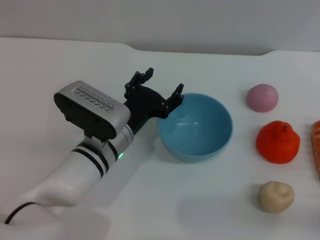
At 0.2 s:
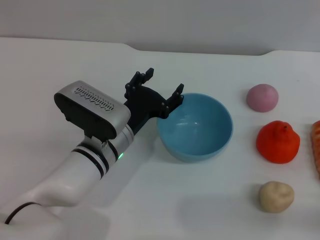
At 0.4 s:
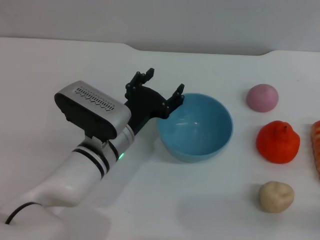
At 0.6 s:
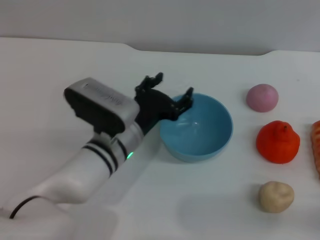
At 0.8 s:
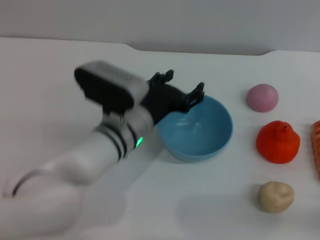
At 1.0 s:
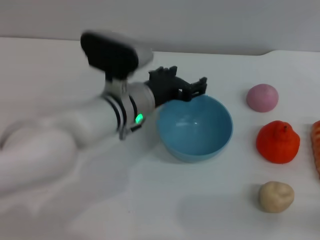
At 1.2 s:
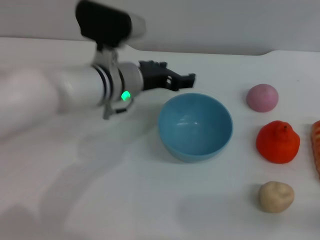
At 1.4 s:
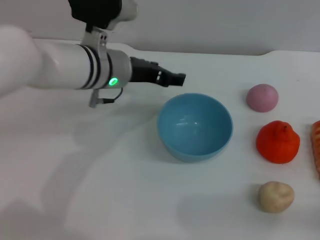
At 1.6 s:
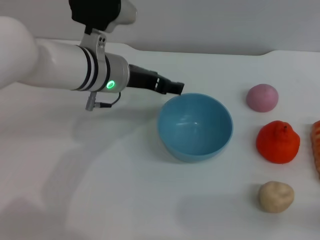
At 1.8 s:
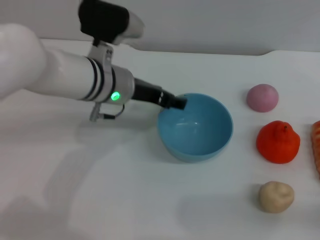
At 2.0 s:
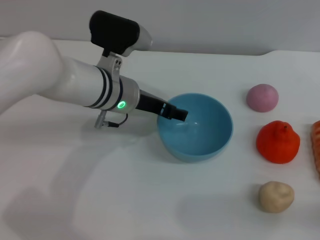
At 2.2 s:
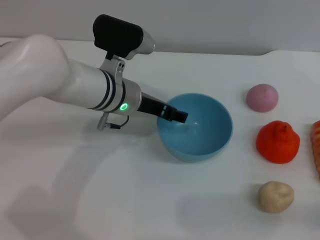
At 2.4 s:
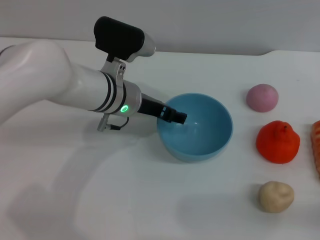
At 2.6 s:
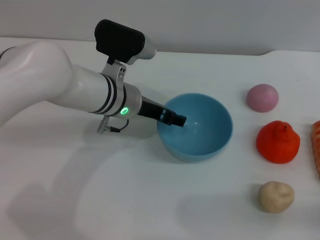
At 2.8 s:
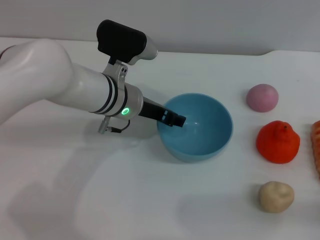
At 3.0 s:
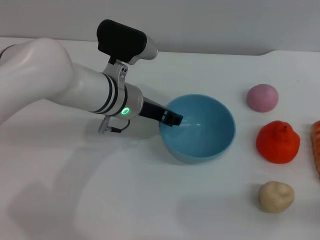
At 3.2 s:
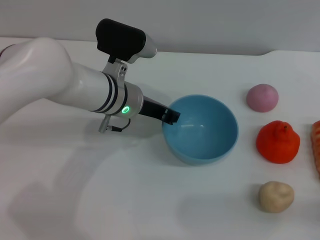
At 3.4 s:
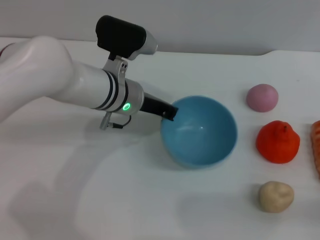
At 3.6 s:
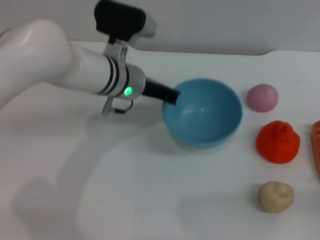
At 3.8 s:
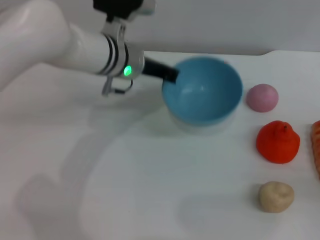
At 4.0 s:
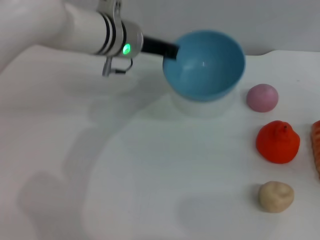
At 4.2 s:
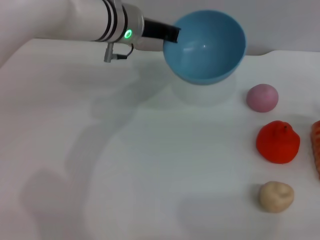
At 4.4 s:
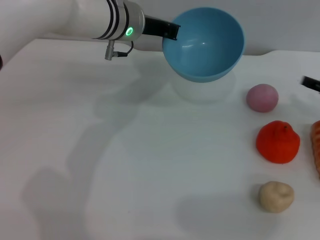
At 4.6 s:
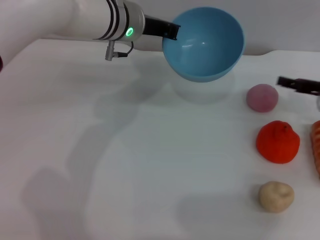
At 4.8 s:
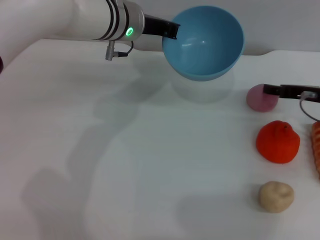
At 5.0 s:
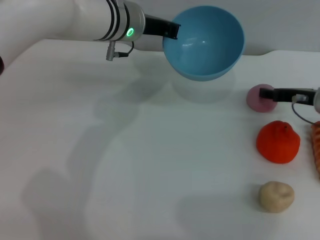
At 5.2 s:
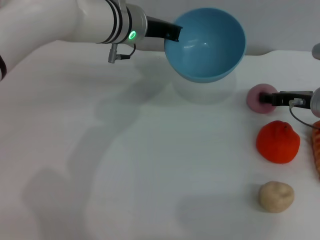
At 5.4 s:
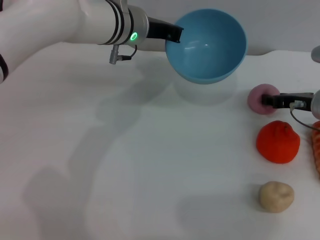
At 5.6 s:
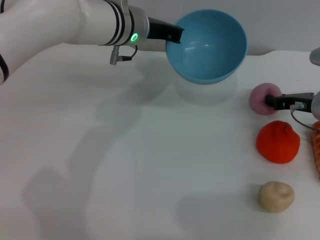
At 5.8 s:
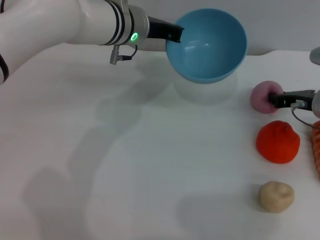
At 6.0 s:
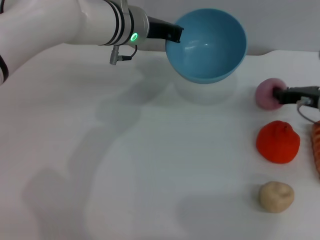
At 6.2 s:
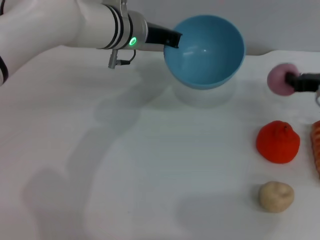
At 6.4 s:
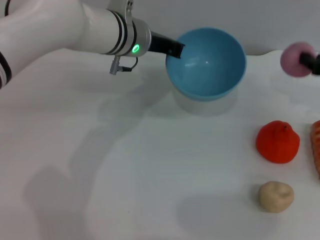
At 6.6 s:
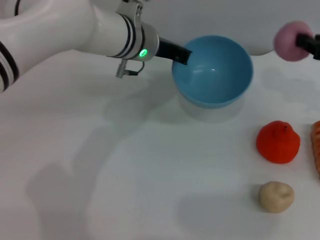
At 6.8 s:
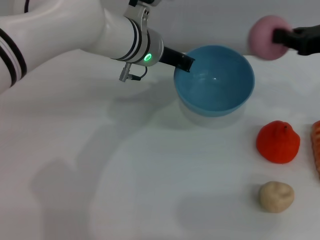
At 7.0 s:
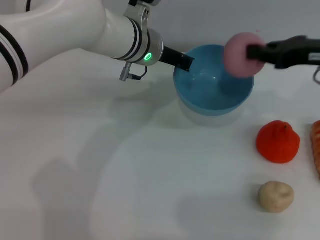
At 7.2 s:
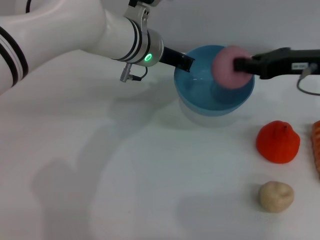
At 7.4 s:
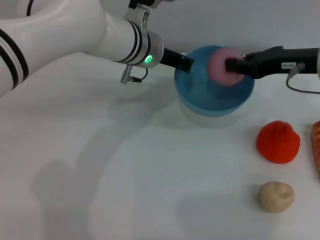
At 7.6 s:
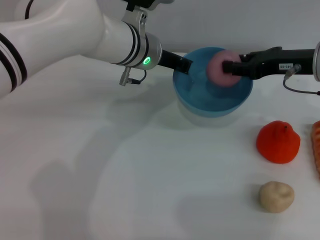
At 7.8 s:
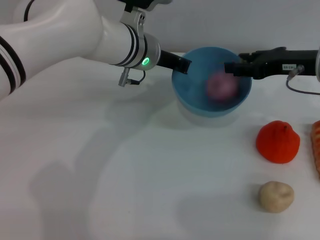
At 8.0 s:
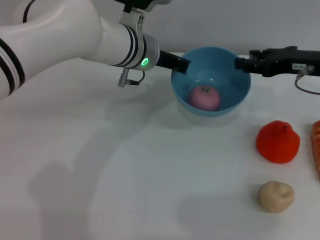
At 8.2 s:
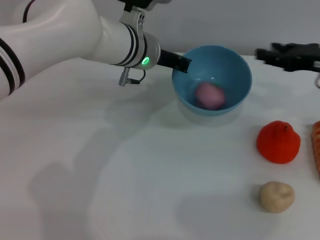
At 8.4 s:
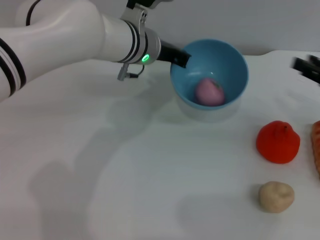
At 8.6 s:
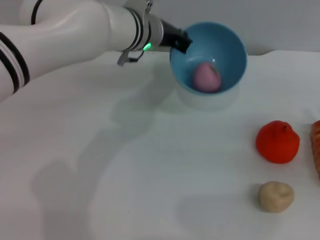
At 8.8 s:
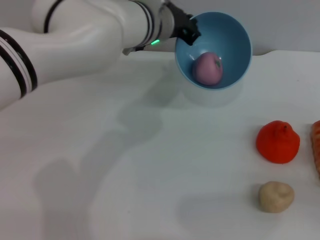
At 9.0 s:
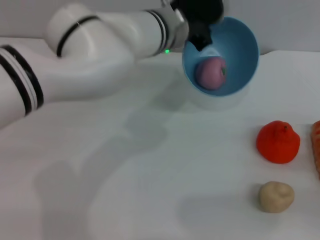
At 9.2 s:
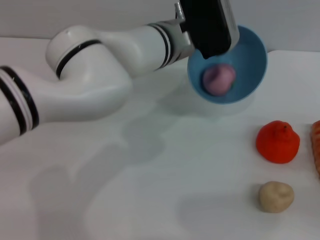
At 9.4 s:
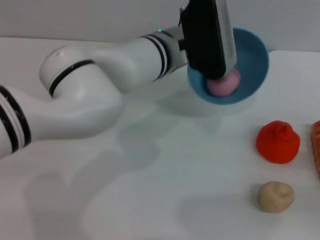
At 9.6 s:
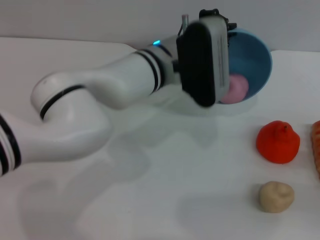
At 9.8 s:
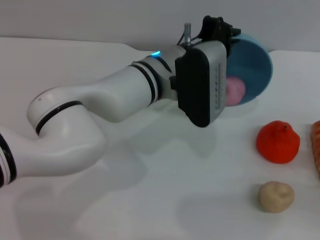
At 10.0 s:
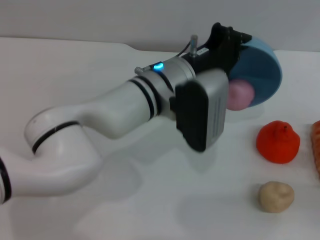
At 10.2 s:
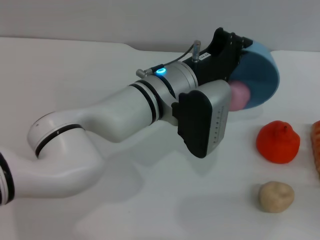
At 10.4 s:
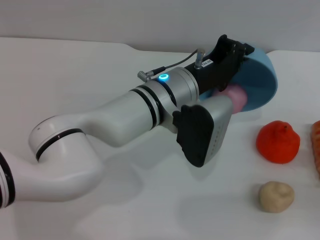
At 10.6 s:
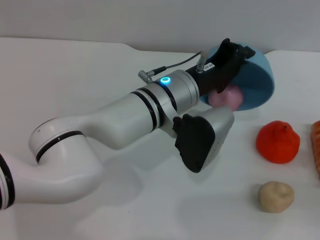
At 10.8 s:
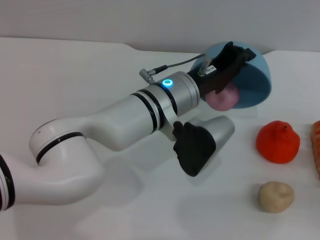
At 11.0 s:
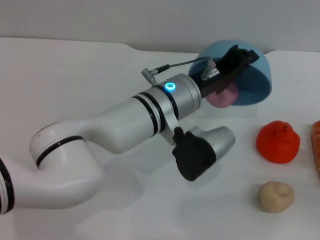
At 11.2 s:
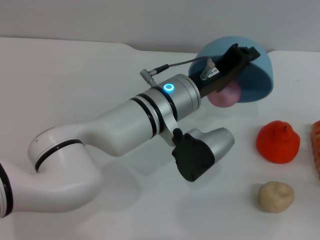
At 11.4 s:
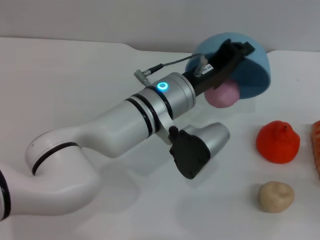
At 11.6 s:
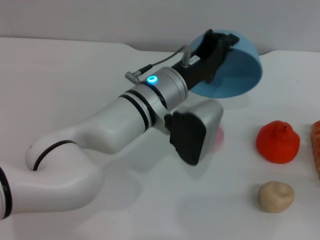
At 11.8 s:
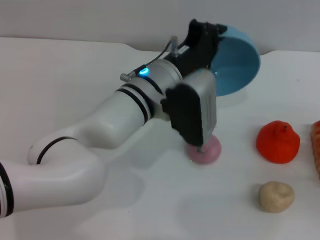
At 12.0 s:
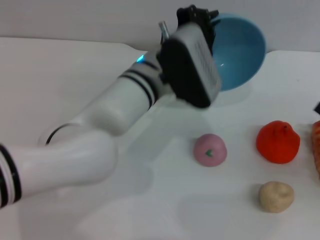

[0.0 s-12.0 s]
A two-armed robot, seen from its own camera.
Task of the whole recording: put the peach into the blue bowl and pour it out repeatedly.
Step, 0.0 to 3.8 s: Pick up the bowl with the left gripper.
Step, 4.0 to 6.0 s: Pick up the peach with the right gripper.
Step, 6.2 to 8.2 s: Place the peach into the bowl.
0.0 to 1.6 s: The left gripper shifts some 15 cm upward and forward.
1.6 to 3.0 s: There are only small adjustments of the grippers.
3.0 to 4.4 s: The left gripper is displaced upward and forward by roughly 10 cm, and closes its fingers, while the right gripper goes about 20 cm forward and upward.
4.4 to 6.0 s: The right gripper goes some 5 cm to the left, and closes its fingers.
6.0 to 7.6 s: The right gripper heads upward, covering approximately 10 cm.
7.6 to 9.0 s: The right gripper heads backward, to the right and downward, covering some 25 cm, and opens.
9.0 to 10.4 s: The left gripper goes about 10 cm backward and downward.

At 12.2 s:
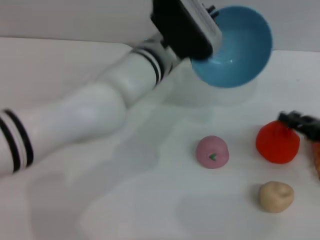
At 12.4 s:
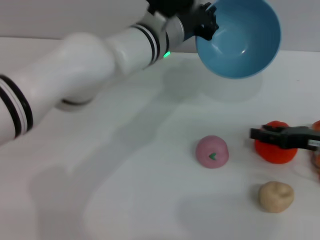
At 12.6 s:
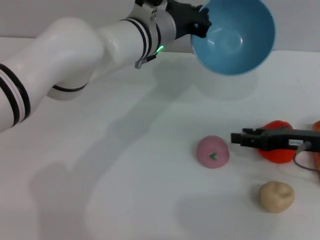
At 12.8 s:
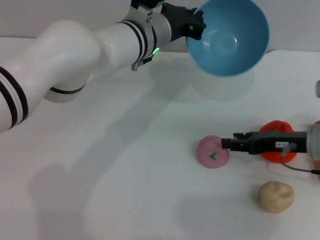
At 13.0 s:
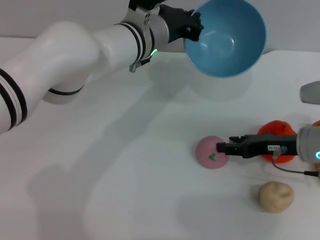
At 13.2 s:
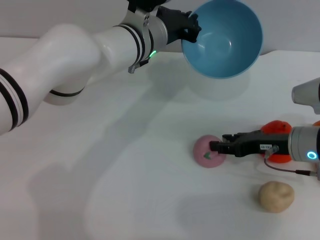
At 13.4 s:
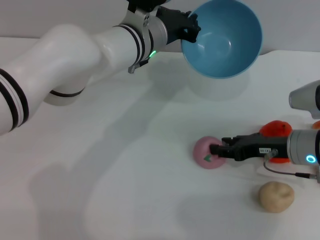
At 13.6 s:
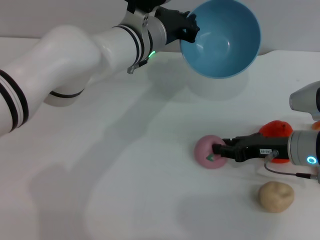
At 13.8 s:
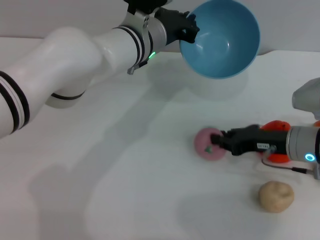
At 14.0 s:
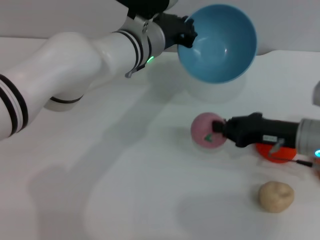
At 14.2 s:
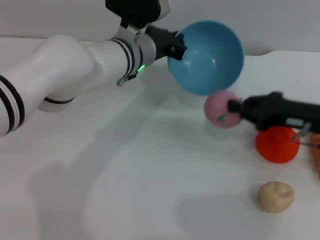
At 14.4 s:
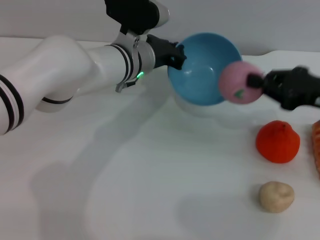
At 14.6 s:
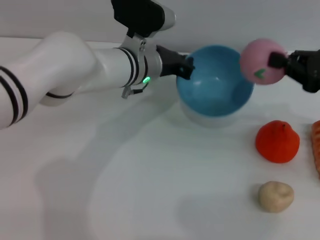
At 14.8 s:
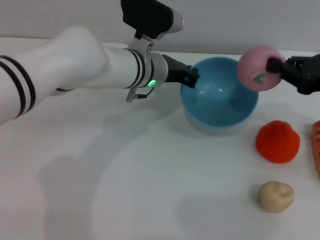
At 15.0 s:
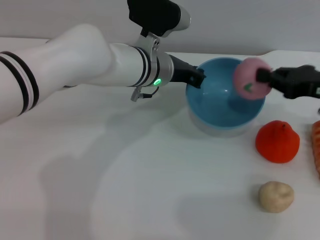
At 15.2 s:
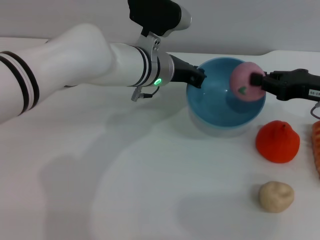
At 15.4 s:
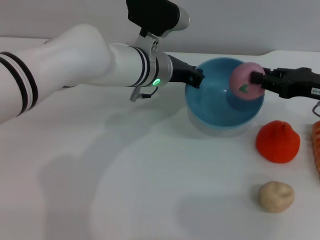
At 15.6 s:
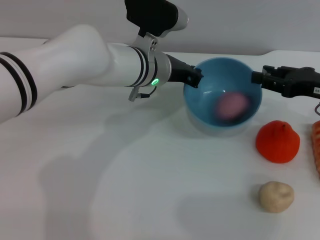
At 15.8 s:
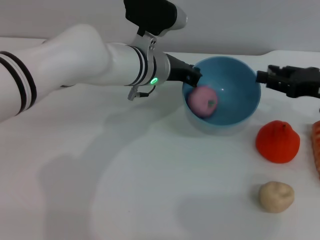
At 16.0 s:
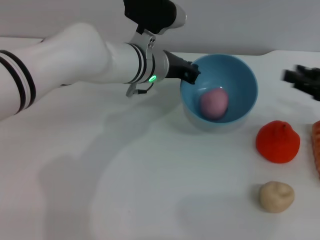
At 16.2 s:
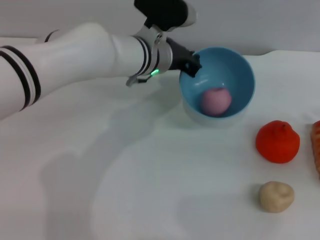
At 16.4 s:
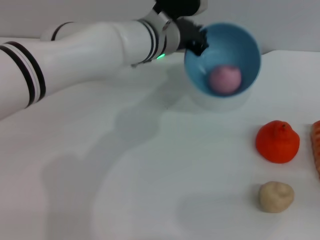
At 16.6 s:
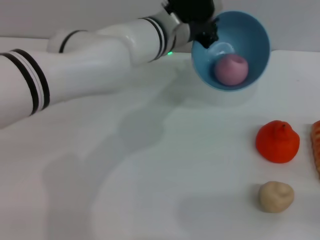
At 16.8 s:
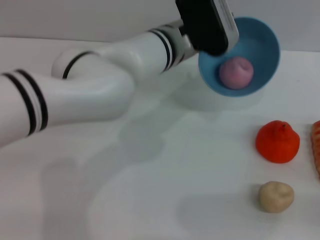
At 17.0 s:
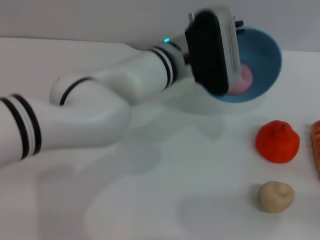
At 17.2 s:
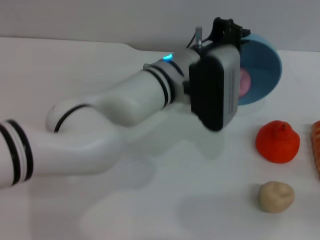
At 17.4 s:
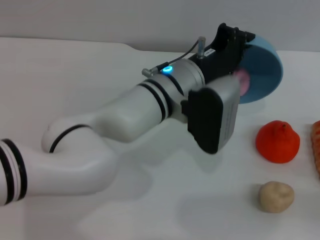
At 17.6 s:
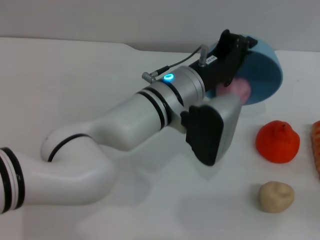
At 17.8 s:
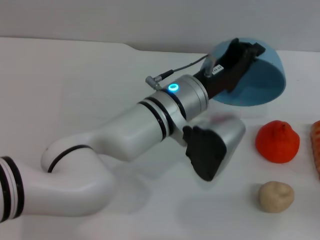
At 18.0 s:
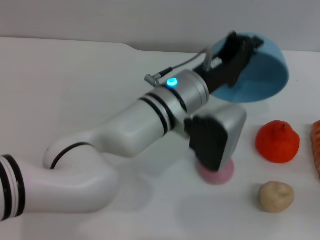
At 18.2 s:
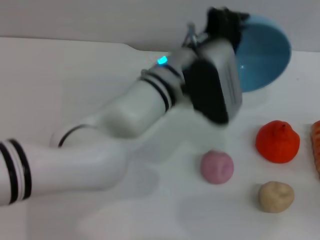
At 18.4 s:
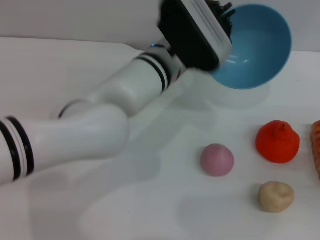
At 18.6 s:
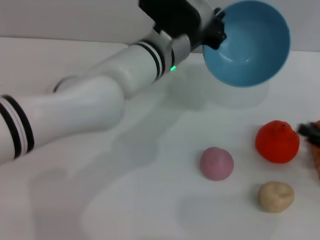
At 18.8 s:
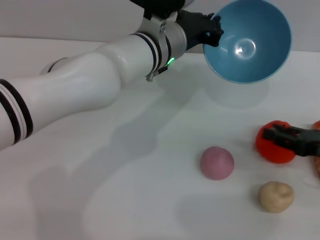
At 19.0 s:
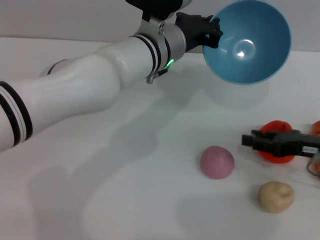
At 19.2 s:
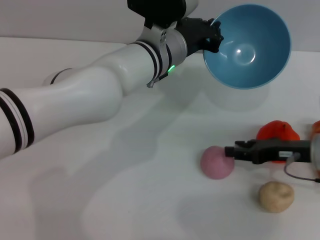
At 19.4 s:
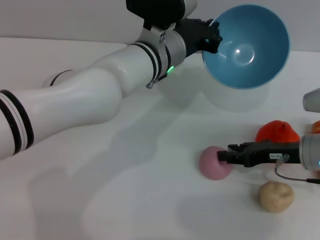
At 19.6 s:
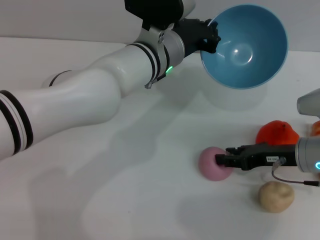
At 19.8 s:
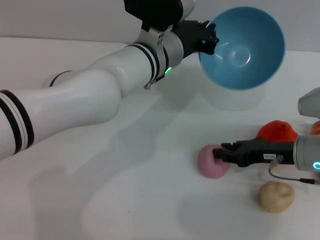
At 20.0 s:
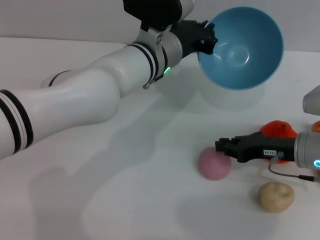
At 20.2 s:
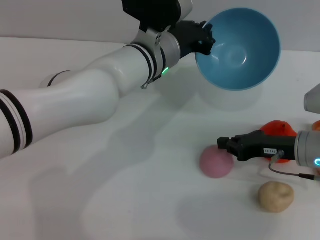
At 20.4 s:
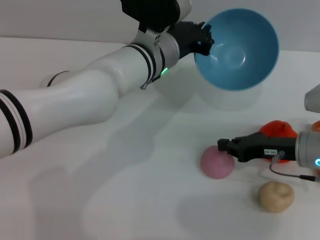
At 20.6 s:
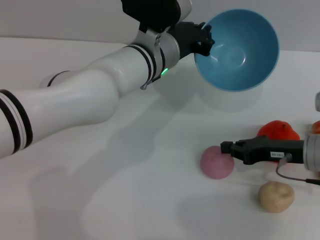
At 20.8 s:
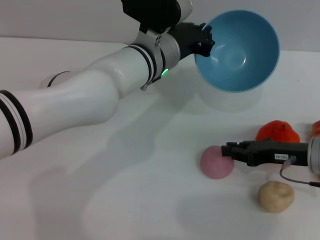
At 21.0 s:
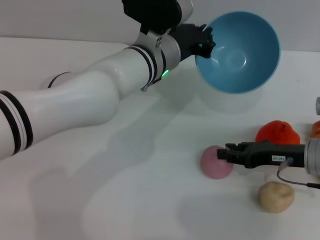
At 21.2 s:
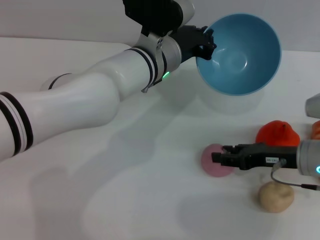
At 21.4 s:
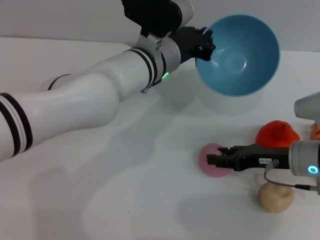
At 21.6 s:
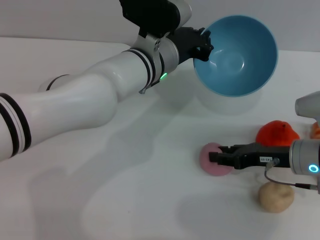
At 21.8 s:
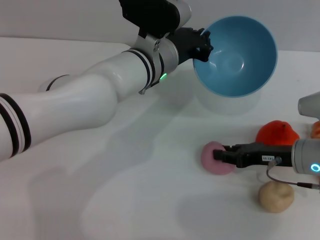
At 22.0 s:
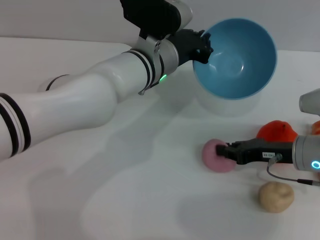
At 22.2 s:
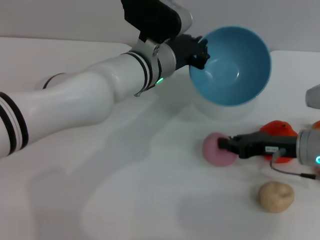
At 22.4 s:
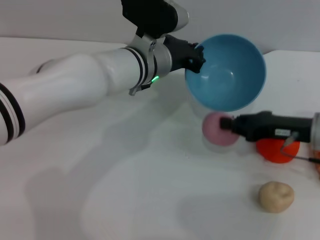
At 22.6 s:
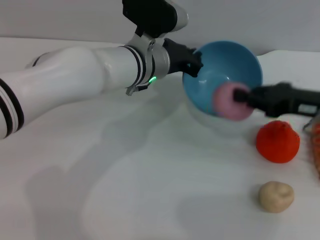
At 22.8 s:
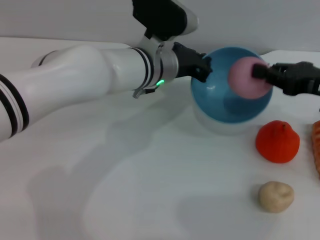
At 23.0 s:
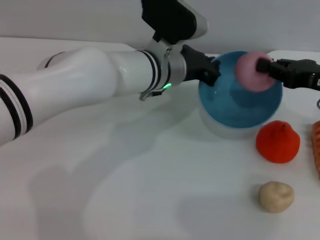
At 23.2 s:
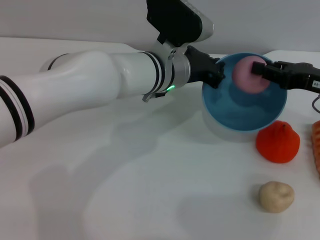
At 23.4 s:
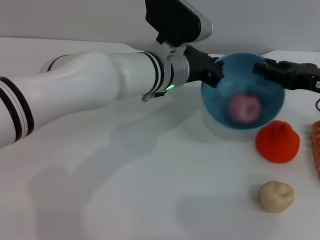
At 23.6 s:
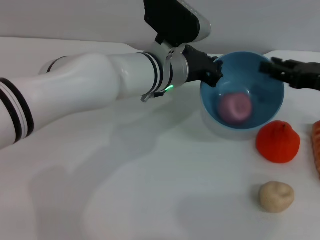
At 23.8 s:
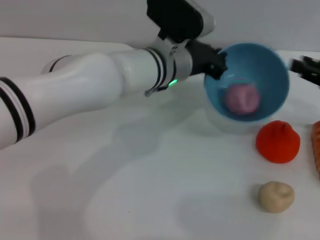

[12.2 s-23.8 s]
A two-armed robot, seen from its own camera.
Task of the whole recording: put the peach into the blue bowl and pour it out repeatedly.
Step, 12.2 to 14.0 s: Pick up the peach with the right gripper.
Step, 14.2 to 15.8 s: Place the peach into the bowl.
Step, 16.0 to 18.2 s: Pour the peach out of bowl.
Step, 18.6 to 22.2 s: Pick up the peach with the right gripper.
Step, 22.4 to 23.8 s: Place the peach into the bowl.
12.2 to 13.6 s: The right gripper shifts about 10 cm to the left, while the left gripper moves about 5 cm.
13.6 to 15.0 s: The right gripper travels upward and to the right by some 10 cm, and closes.
15.0 to 16.6 s: The right gripper goes roughly 20 cm backward, to the right and downward, and opens up.
16.6 to 18.0 s: The left gripper shifts roughly 10 cm backward.
18.0 to 19.4 s: The right gripper moves to the left and forward, some 20 cm. Meanwhile the left gripper travels forward by roughly 5 cm.
19.4 to 21.0 s: The right gripper closes its fingers.
21.0 to 22.4 s: The right gripper opens, then closes again.
22.4 to 23.8 s: The right gripper shifts about 10 cm to the right, and opens.
